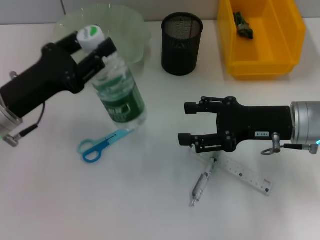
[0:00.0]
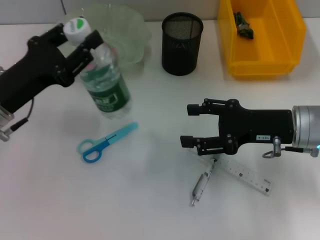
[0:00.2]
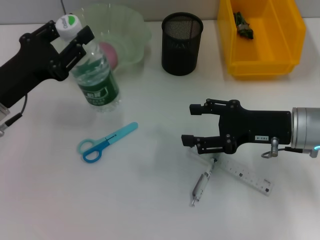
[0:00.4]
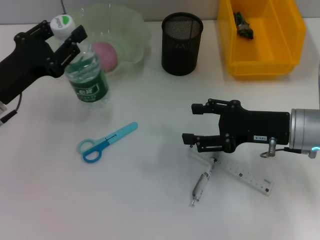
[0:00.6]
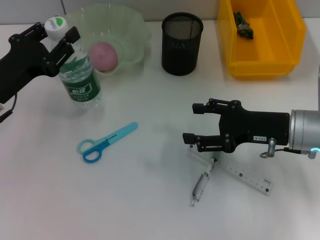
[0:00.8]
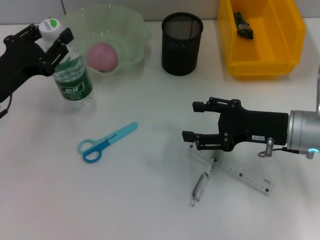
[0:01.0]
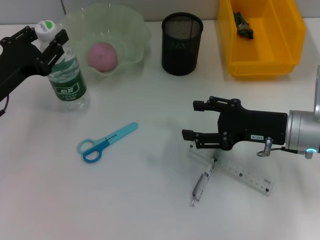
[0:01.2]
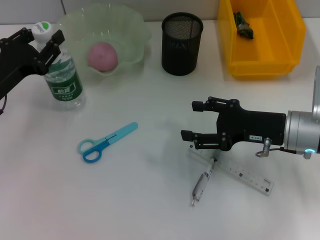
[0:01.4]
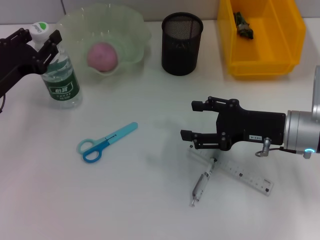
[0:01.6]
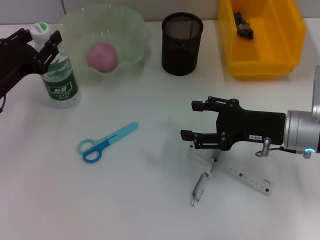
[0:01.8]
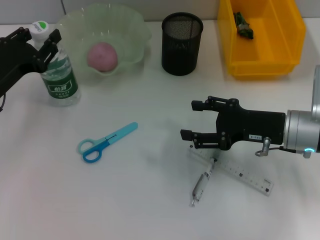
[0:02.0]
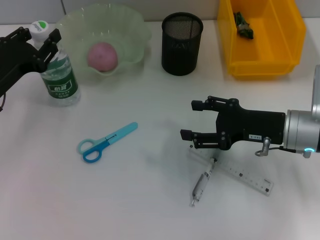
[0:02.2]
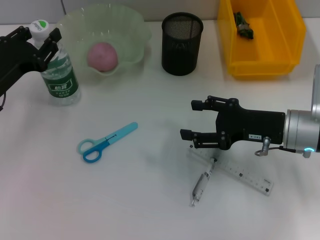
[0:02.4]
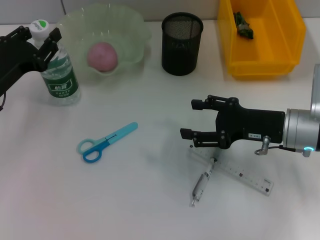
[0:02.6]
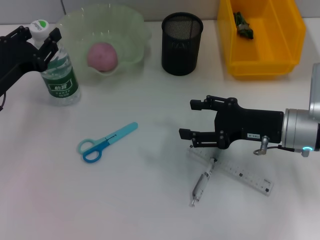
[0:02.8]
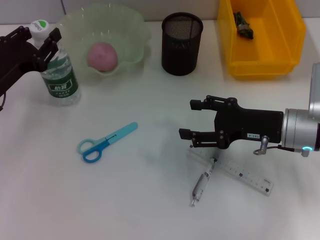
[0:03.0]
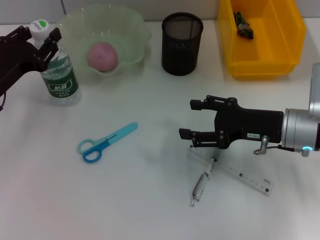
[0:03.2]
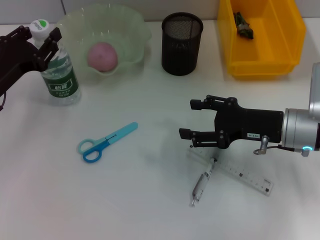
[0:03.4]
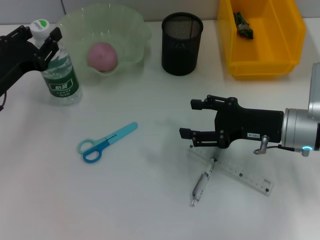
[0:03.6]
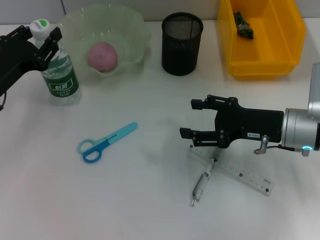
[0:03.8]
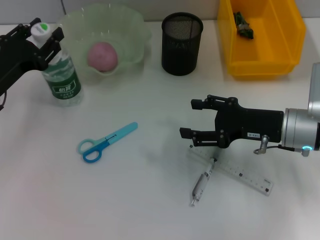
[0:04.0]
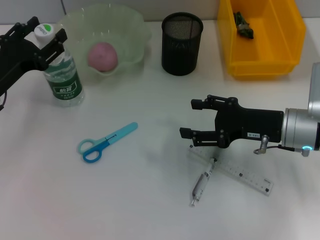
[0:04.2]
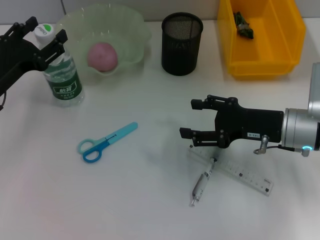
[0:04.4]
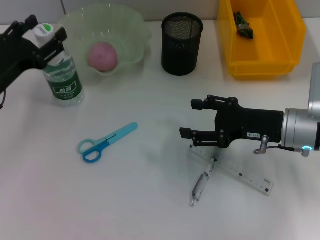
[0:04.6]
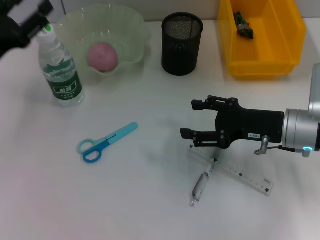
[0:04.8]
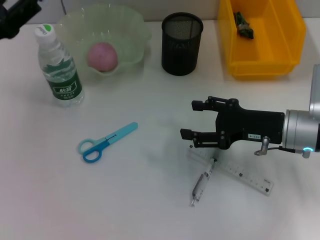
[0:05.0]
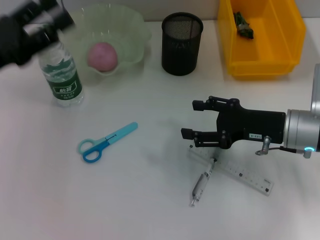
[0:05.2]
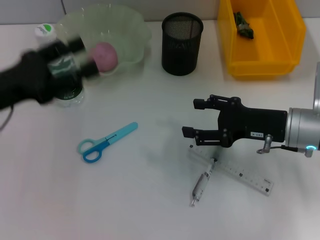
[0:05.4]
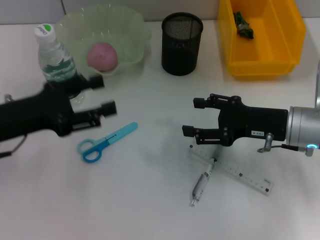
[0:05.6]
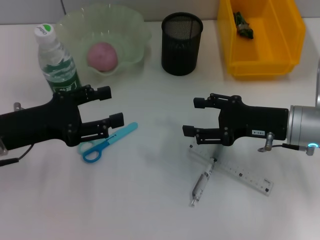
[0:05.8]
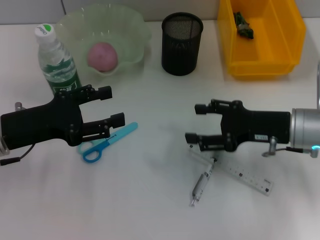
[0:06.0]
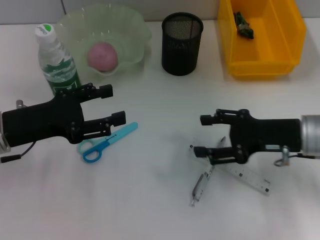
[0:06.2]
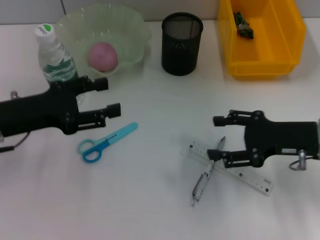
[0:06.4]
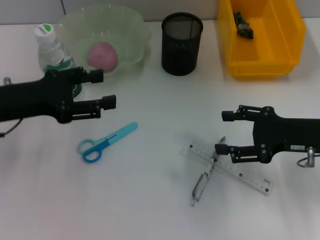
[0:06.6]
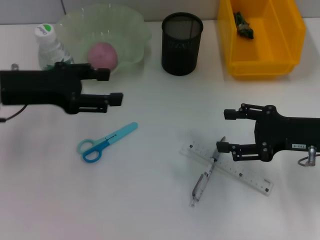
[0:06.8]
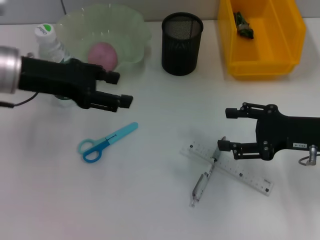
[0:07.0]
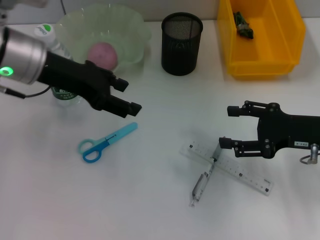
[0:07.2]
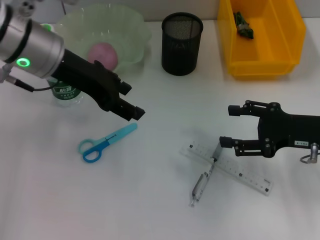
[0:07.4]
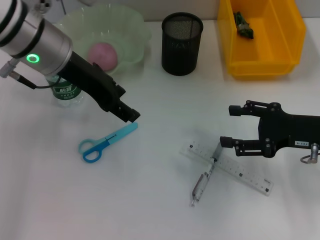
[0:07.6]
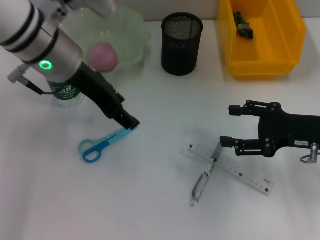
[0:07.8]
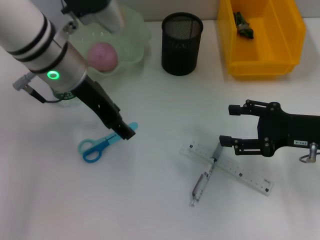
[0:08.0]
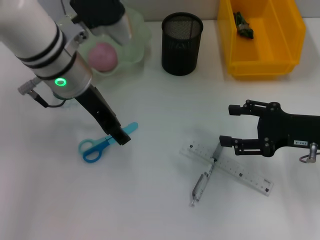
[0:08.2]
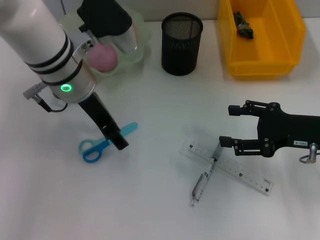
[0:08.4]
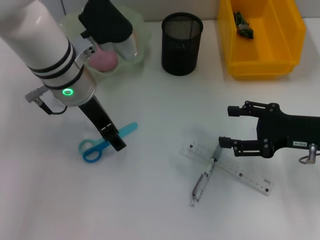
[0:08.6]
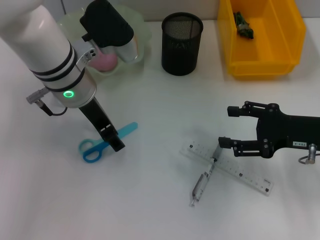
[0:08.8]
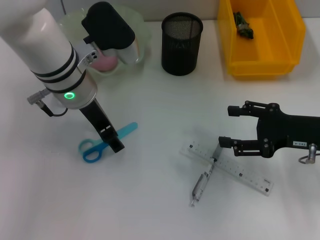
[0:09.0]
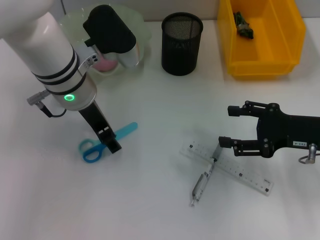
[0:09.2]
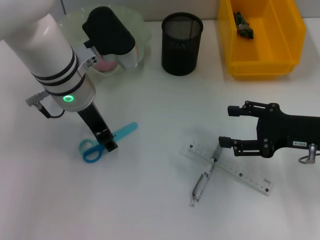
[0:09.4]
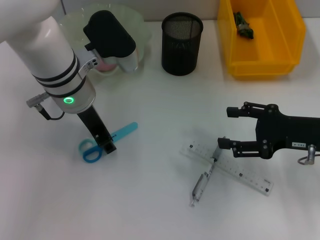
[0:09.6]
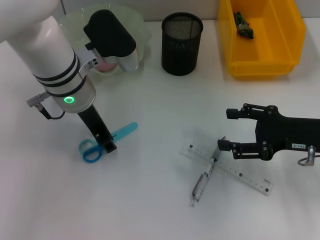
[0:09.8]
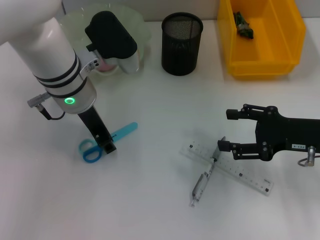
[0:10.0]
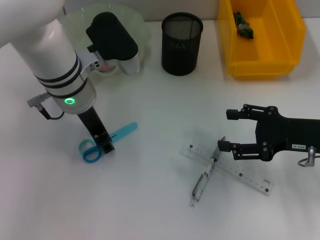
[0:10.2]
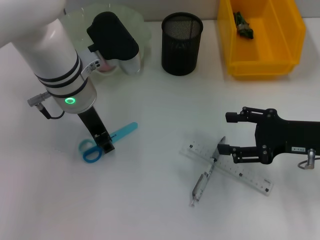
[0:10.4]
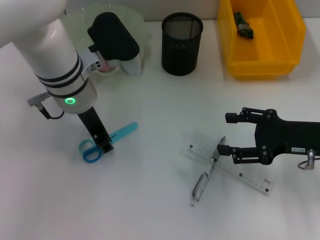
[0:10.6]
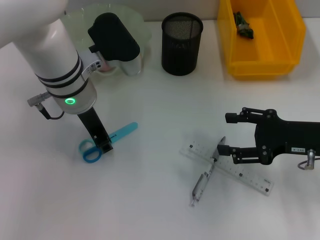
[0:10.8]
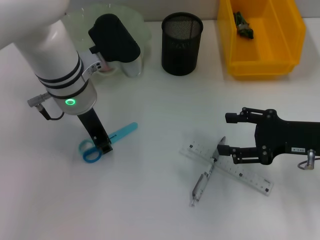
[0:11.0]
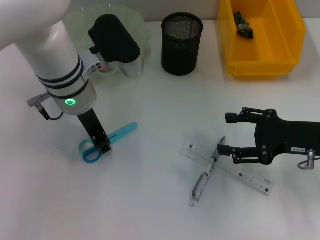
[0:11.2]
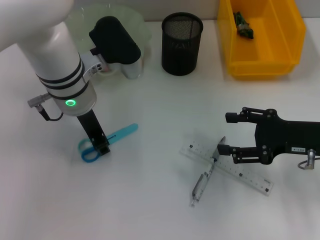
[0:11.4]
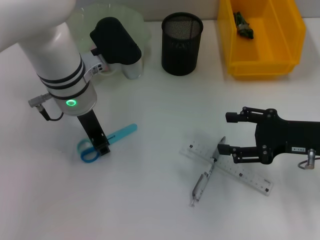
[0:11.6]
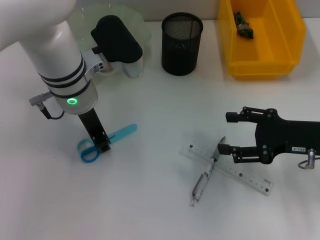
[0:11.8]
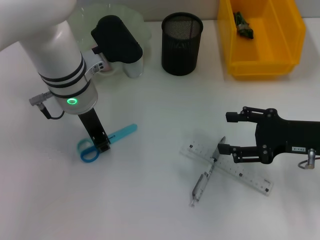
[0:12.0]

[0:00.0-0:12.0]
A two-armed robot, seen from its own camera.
Step, 0:00.0 to 0:05.0: Place the water bottle on the table with the left hand.
0:00.0 to 0:01.6: The left gripper moves about 5 cm.
0:01.6 to 0:04.4: Both grippers stay put.
0:04.4 to 0:06.0: The left gripper changes place by approximately 5 cm.
0:06.0 to 0:07.6: The left gripper heads upward, to the right and forward, covering approximately 20 cm, while the right gripper shifts by about 5 cm.
0:07.6 to 0:09.0: The left gripper shifts some 5 cm downward.
0:09.0 to 0:10.4: The left gripper closes.
0:10.4 to 0:12.0: Neither gripper changes place.

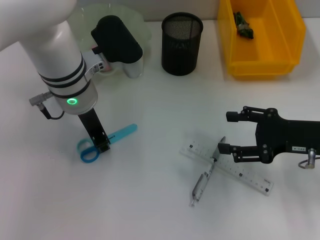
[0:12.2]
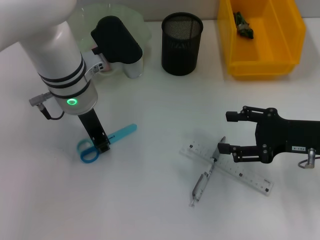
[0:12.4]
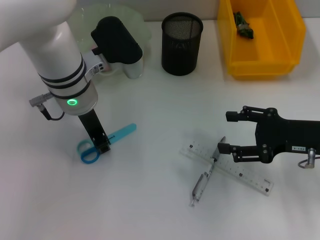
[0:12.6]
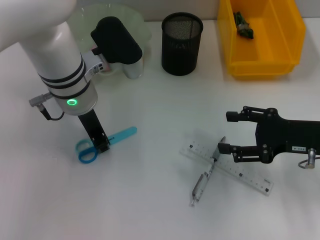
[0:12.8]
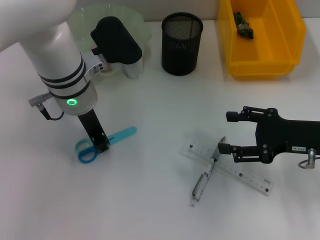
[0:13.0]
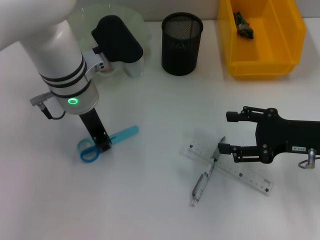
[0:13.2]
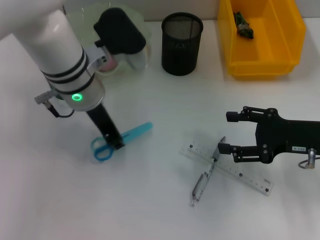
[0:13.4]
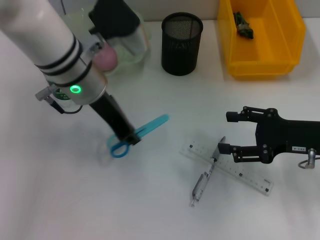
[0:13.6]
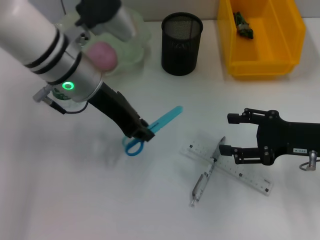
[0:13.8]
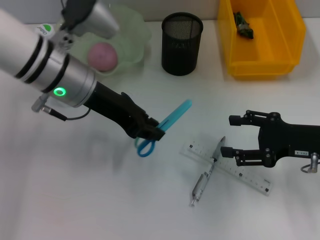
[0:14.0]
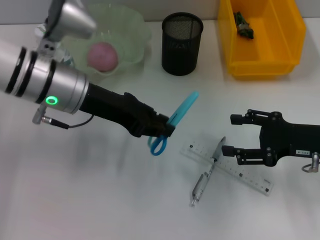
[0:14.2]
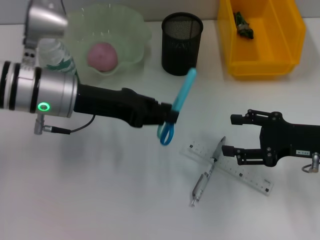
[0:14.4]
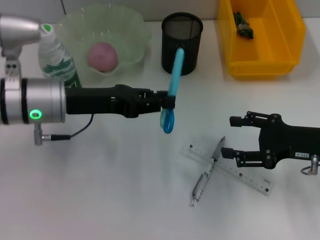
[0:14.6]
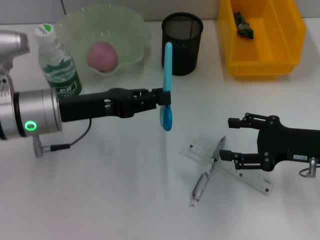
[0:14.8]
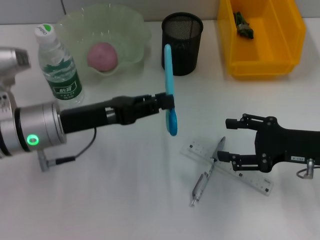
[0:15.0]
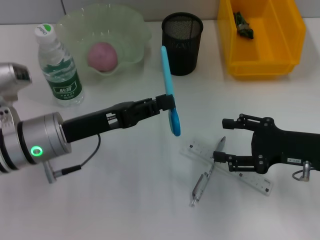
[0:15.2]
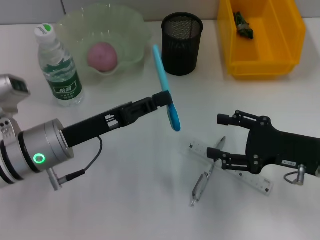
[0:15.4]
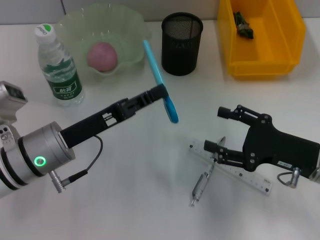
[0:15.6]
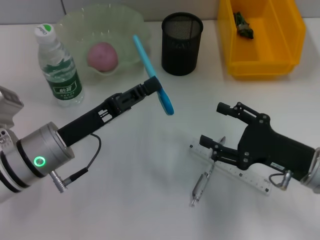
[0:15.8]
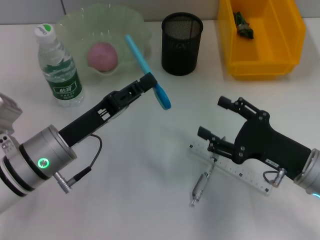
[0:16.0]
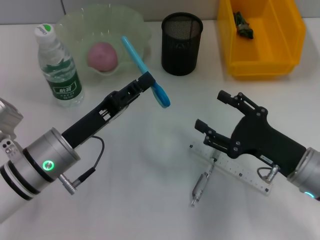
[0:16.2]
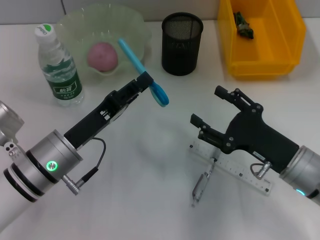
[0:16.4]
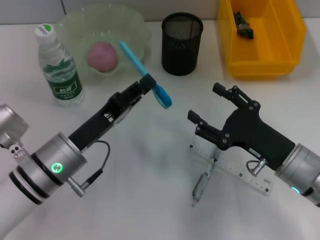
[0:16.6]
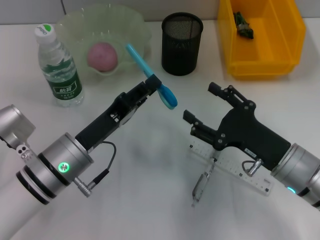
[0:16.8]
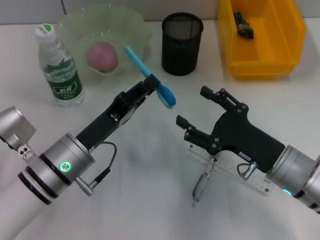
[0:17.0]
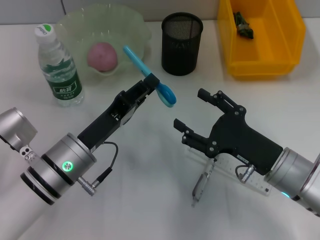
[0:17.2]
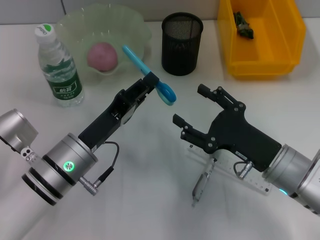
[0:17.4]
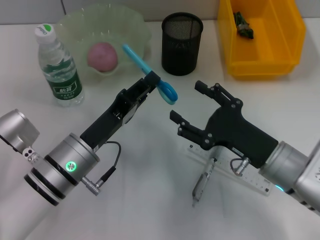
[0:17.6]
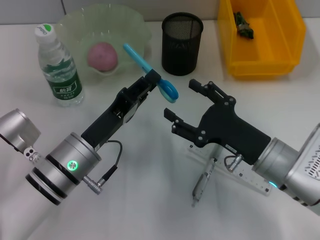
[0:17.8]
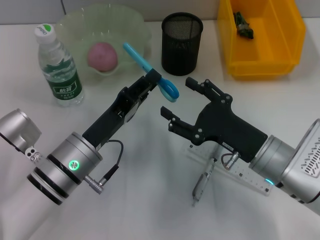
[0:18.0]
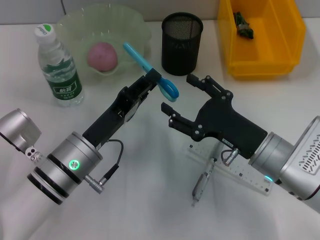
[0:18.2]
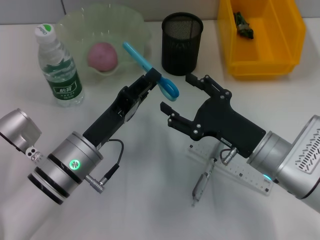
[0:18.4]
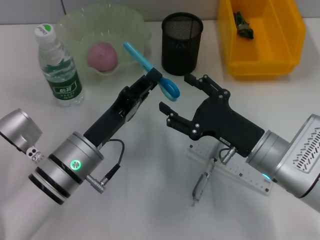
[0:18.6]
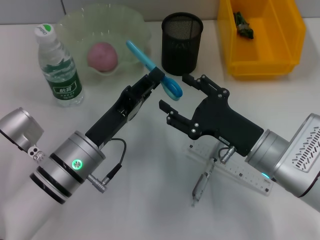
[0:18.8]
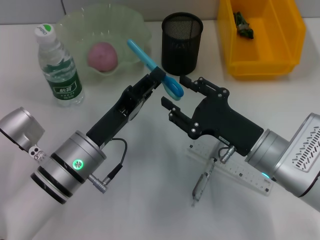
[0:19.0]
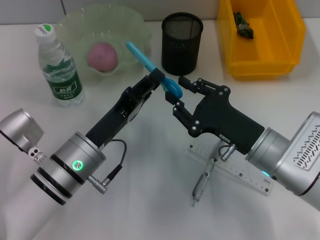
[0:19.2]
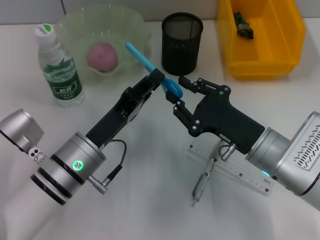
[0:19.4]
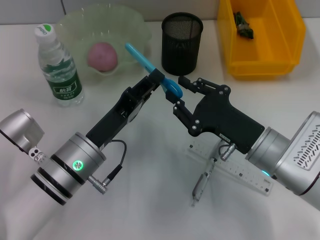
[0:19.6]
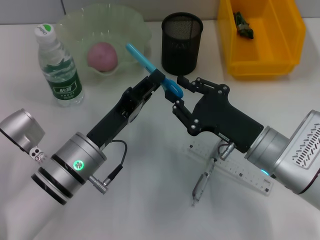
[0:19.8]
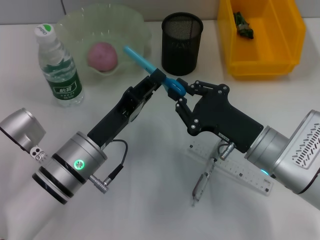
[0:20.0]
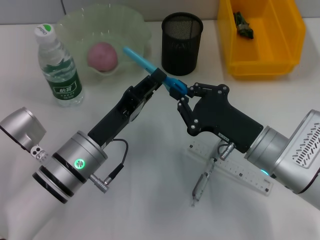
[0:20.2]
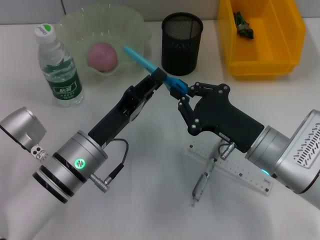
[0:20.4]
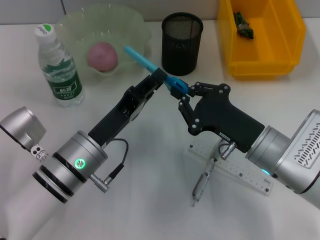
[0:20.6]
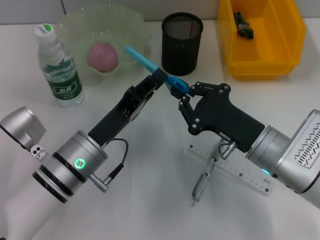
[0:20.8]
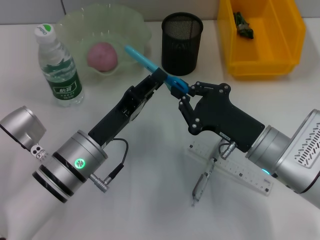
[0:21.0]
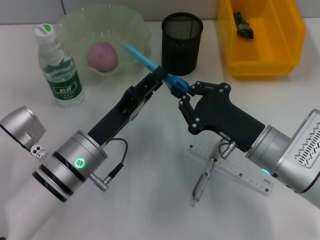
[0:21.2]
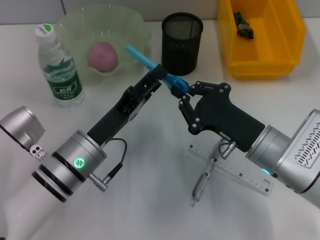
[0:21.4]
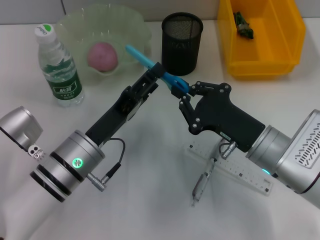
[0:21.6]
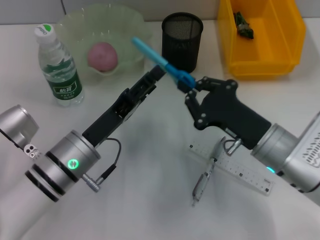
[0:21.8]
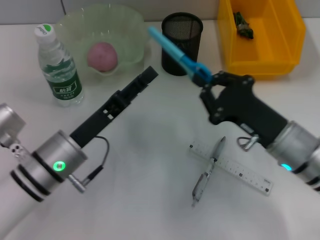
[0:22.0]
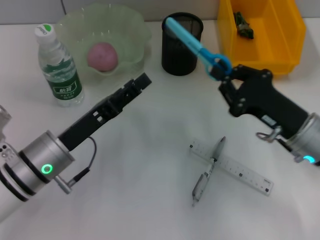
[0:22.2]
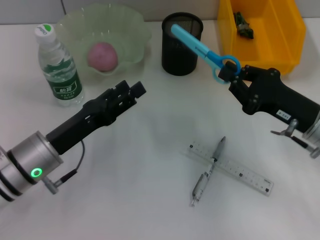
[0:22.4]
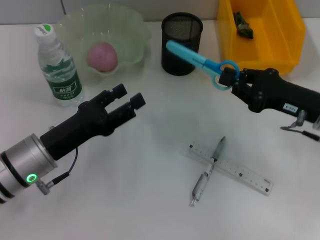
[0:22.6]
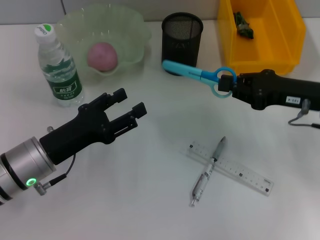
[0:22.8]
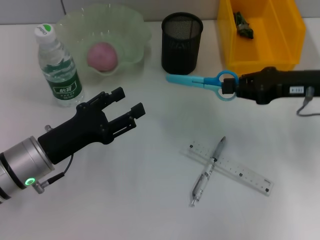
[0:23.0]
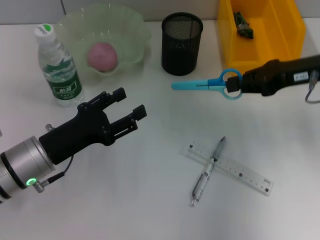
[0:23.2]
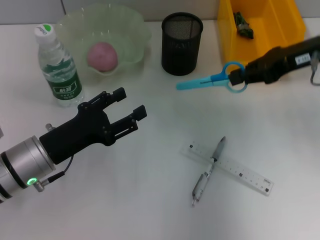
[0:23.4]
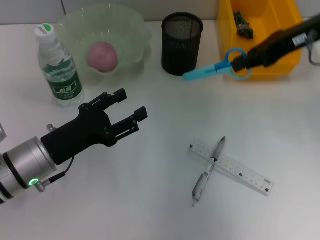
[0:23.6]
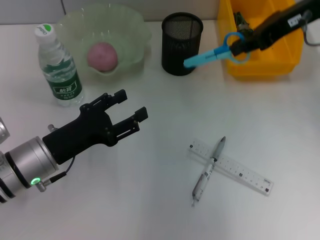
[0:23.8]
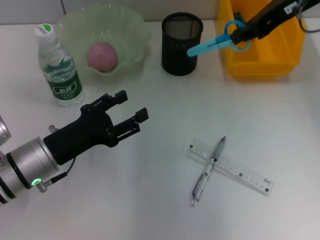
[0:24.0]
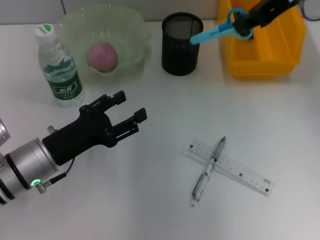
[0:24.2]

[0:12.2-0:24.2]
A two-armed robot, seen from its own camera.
Step, 0:13.0 to 0:21.8: Pass the blue scissors from the left hand to the right hand.
0:13.8 to 0:15.2: The left gripper moves downward, backward and to the left, some 15 cm.
0:15.2 to 0:16.6: The left gripper shifts by some 5 cm; the right gripper travels to the left by approximately 5 cm.
0:18.2 to 0:19.8: The right gripper closes its fingers.
0:19.8 to 0:21.2: Both grippers stay put.
0:21.2 to 0:22.6: The left gripper goes roughly 5 cm to the left, and opens; the right gripper travels to the right by roughly 10 cm.
0:22.6 to 0:24.2: The right gripper goes some 25 cm upward and forward.
